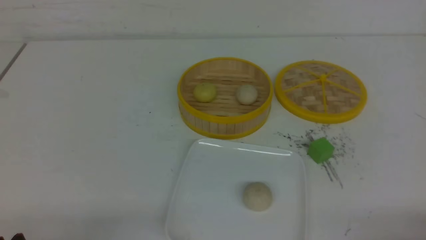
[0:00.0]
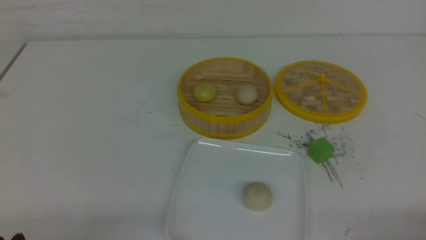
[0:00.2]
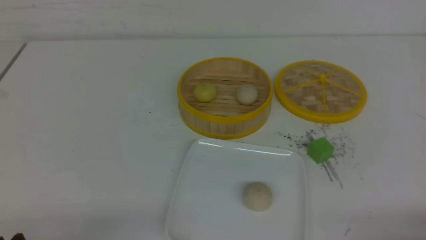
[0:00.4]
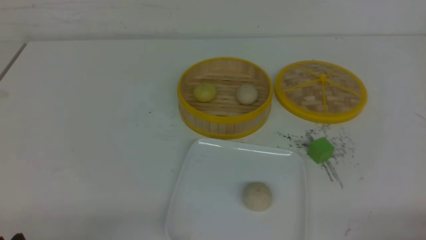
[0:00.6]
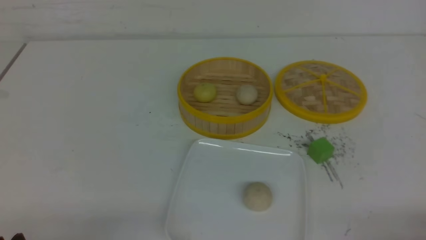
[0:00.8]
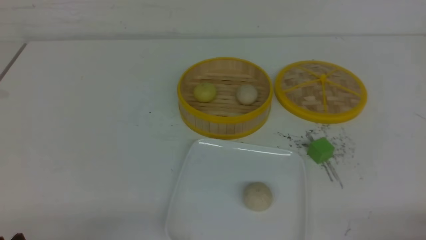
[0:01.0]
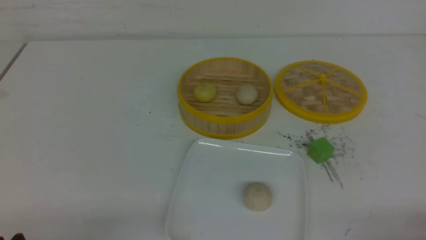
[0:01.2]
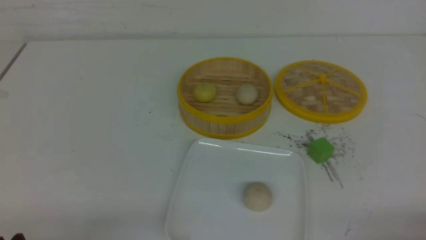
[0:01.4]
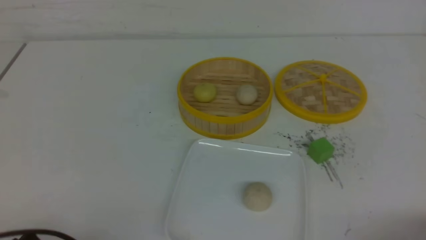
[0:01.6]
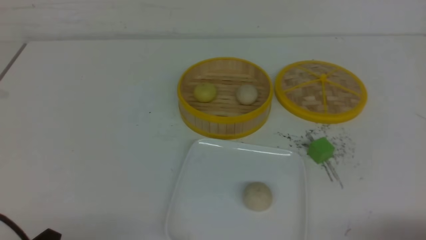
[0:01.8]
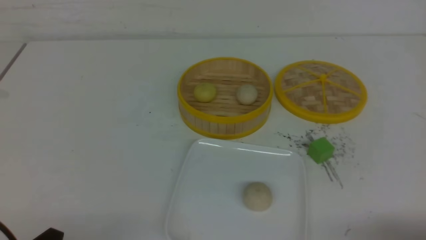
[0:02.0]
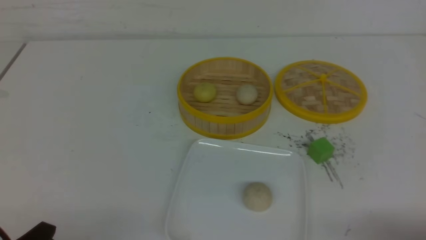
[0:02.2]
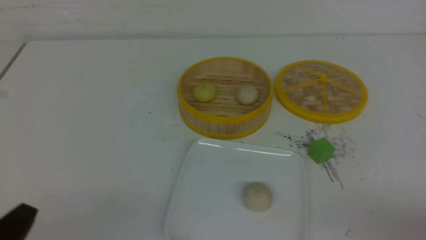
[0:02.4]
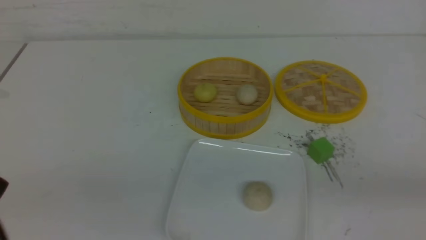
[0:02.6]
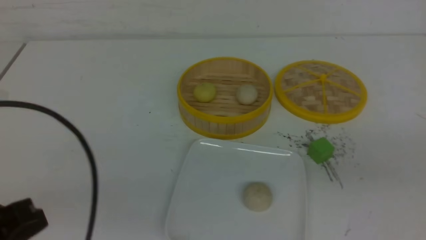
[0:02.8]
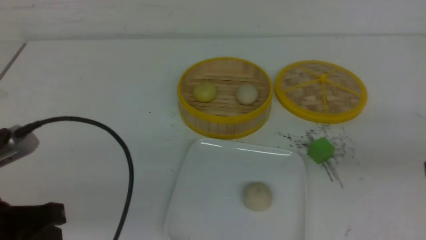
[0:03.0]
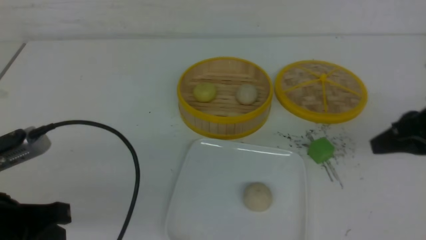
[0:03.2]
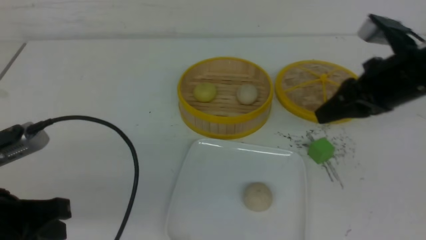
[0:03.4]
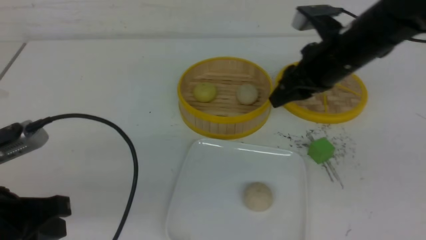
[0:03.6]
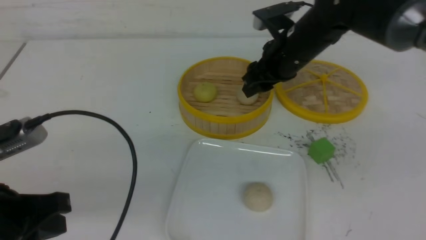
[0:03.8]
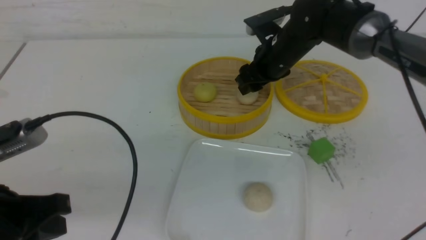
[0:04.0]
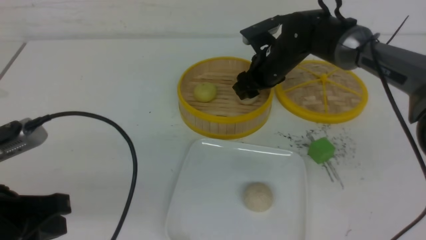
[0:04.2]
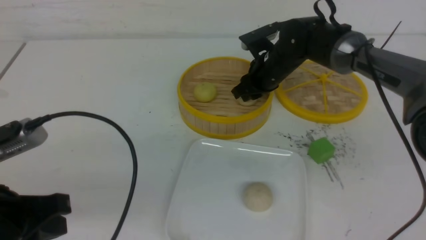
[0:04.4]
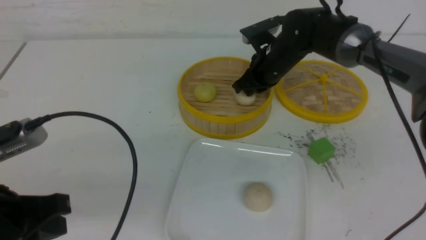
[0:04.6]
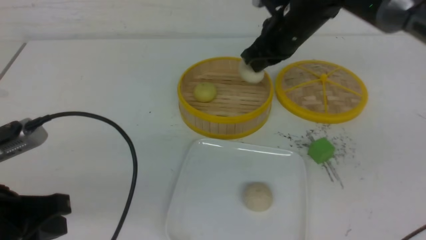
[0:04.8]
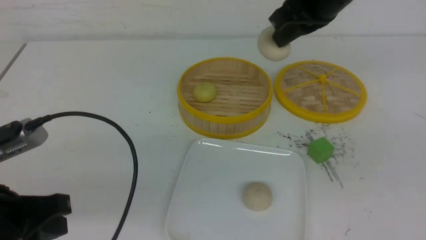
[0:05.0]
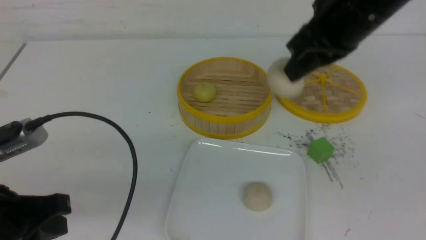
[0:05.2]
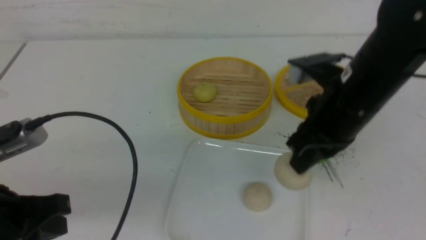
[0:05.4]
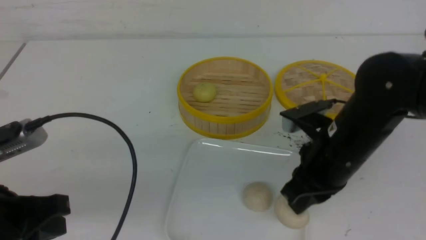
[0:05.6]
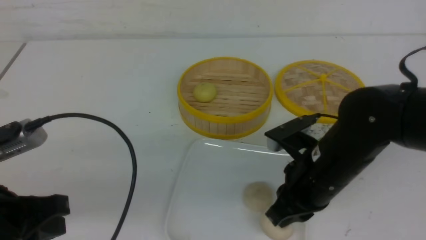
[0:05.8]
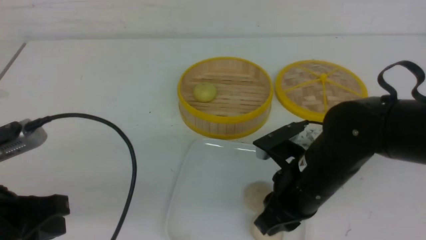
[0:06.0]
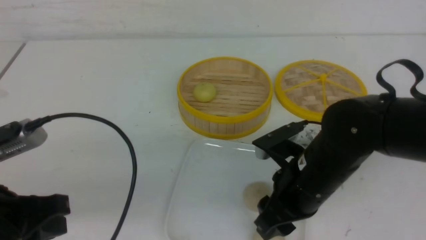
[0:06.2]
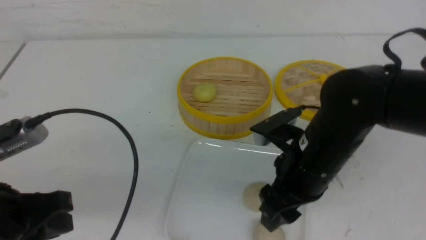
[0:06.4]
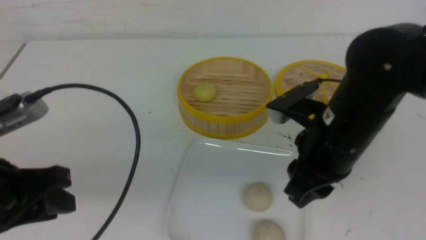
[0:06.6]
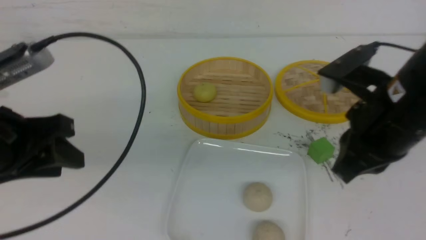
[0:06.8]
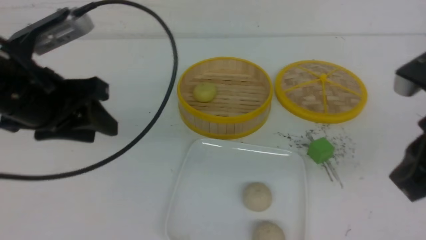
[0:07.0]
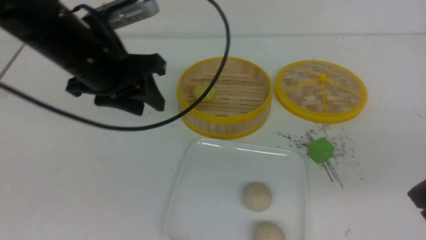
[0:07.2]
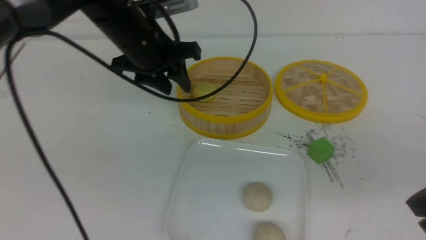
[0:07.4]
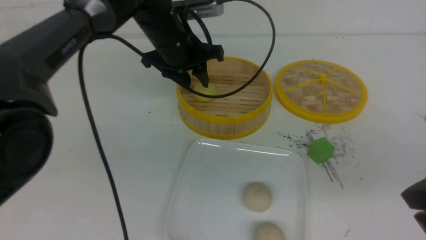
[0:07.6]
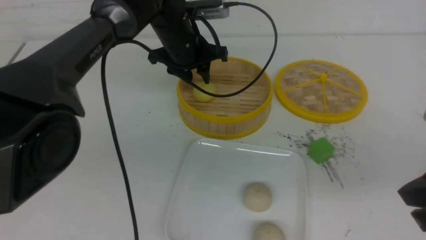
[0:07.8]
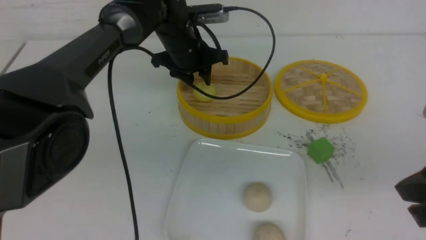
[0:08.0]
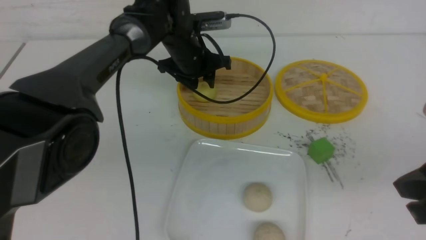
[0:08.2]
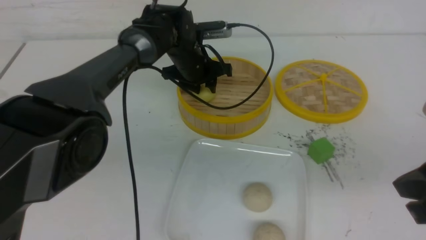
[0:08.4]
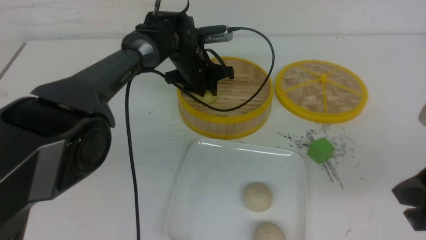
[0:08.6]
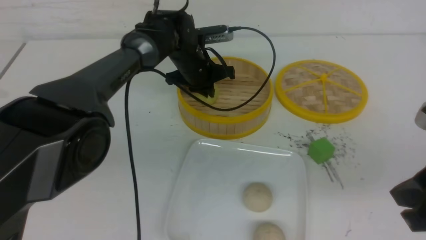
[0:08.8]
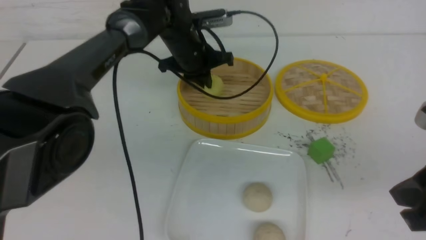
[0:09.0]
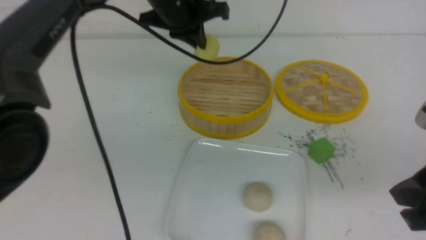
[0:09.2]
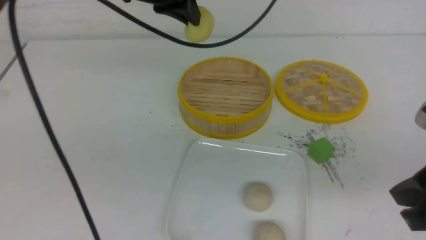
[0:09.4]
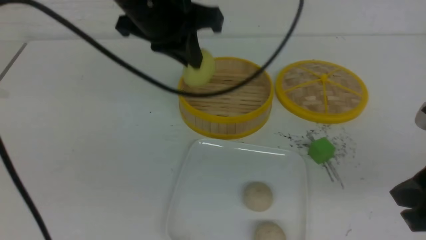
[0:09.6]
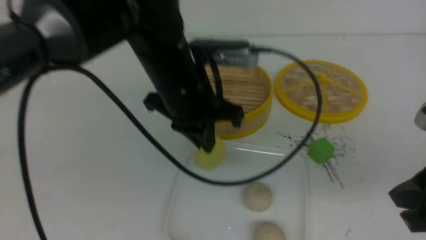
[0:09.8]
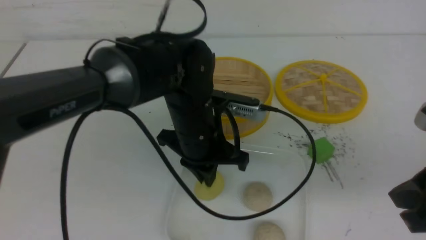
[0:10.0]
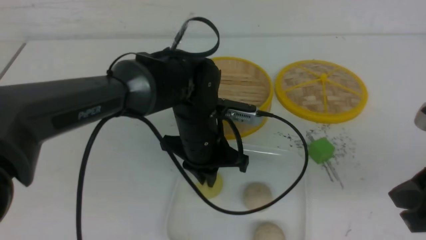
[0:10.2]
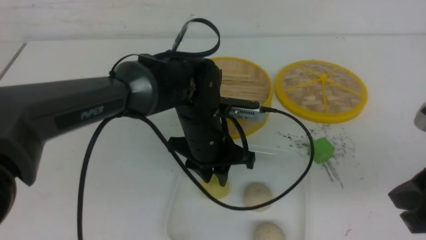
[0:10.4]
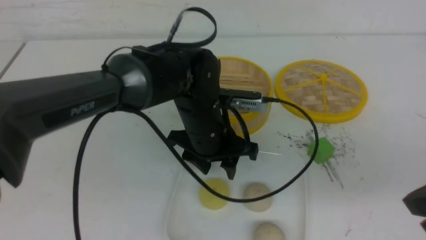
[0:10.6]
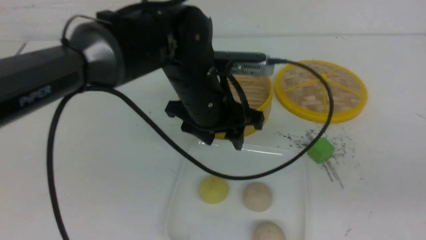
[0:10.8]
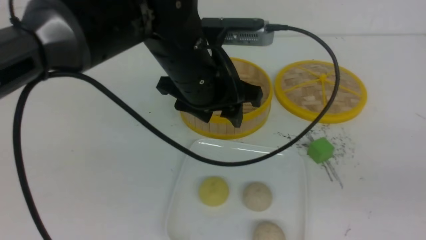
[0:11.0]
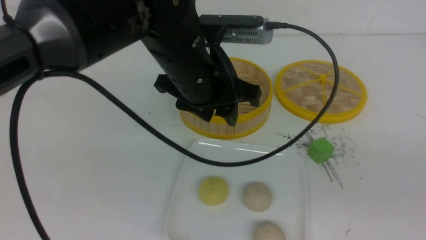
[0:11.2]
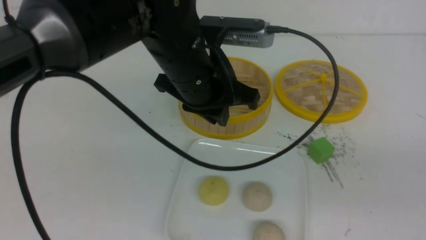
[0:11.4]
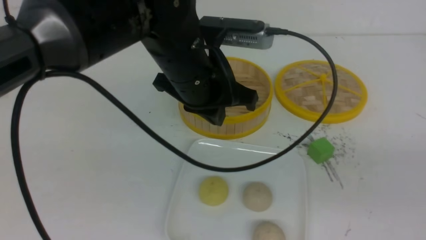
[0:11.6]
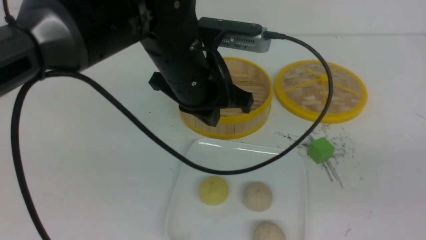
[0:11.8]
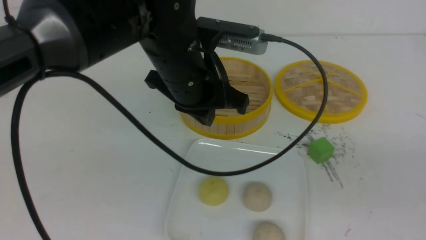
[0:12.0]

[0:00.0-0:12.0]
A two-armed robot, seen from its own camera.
Step, 0:00.0 to 0:04.6: use the right arm to grab the steamed stuffed bun that is closest to it.
Step, 0:04.8 to 0:06.4: use the right arm to put the steamed stuffed bun into the plate.
Step, 0:06.6 to 0:08.4: use the left arm to grab the steamed stuffed bun that is closest to it.
Step, 0:08.6 to 0:10.2: use the left arm to put the steamed stuffed bun into the plate.
0:01.6 to 0:03.0: The two grippers go roughly 15 cm upward and forward. The left gripper closes its fingers; the right gripper closes its fingers.
0:03.0 to 0:04.4: The right gripper shifts about 35 cm forward and to the left, and opens.
0:04.4 to 0:06.0: The right gripper travels backward by roughly 25 cm, and closes and opens again.
0:06.0 to 0:07.6: The right gripper shifts some 20 cm to the right, upward and backward, and closes. The left gripper goes some 35 cm forward and to the right, and opens its fingers.
0:07.6 to 0:09.0: The left gripper reaches roughly 10 cm downward, then returns, and closes up.
0:09.0 to 0:10.4: The left gripper moves backward and downward, about 15 cm, and opens up.
0:10.4 to 0:12.0: The left gripper is displaced upward by approximately 10 cm, and closes up. The right gripper is displaced backward and to the right by roughly 10 cm.

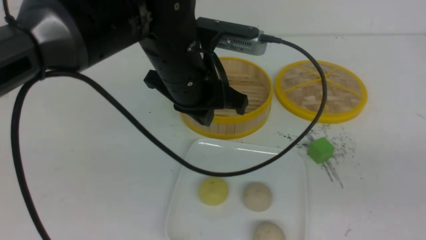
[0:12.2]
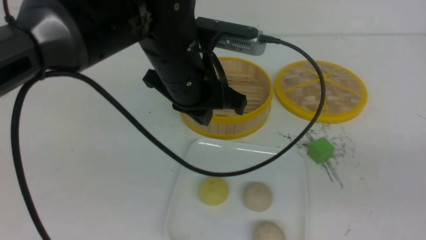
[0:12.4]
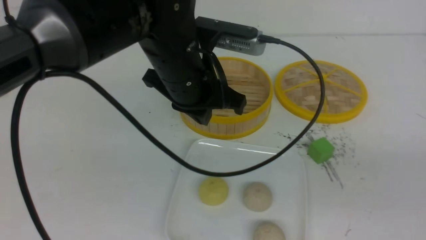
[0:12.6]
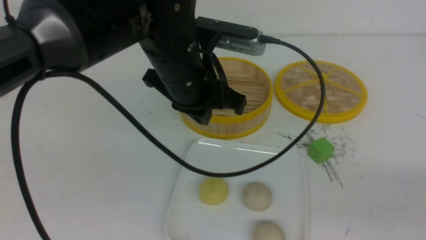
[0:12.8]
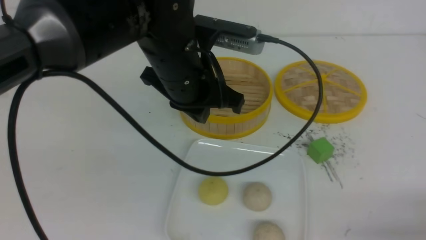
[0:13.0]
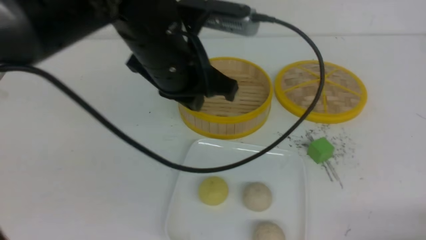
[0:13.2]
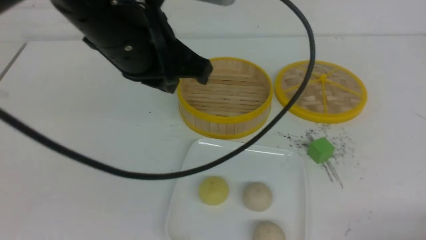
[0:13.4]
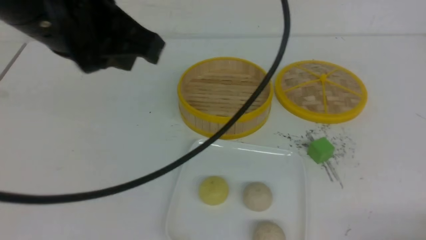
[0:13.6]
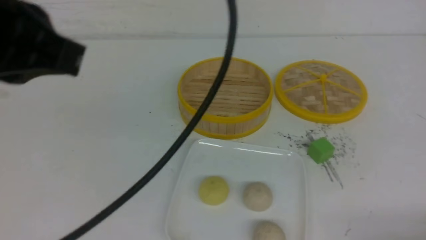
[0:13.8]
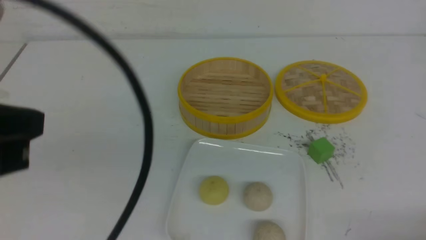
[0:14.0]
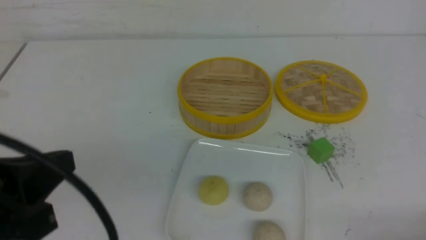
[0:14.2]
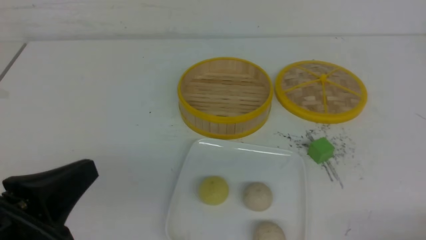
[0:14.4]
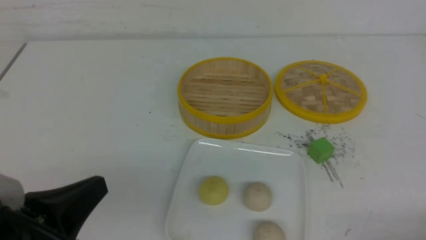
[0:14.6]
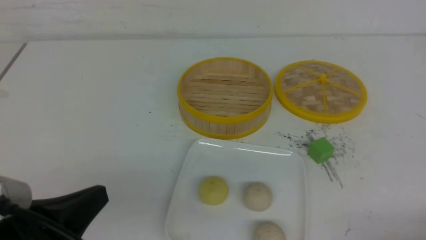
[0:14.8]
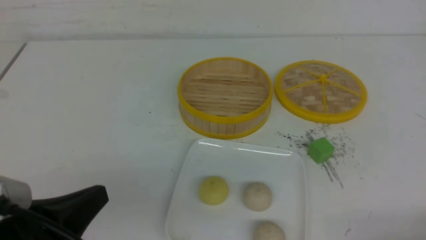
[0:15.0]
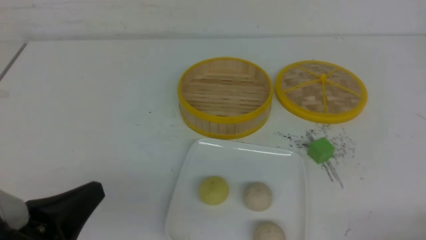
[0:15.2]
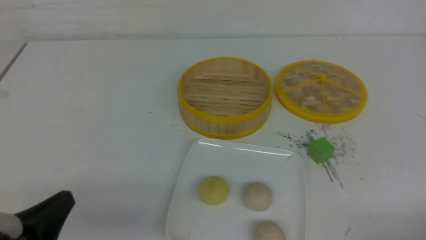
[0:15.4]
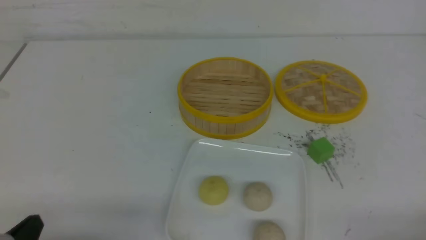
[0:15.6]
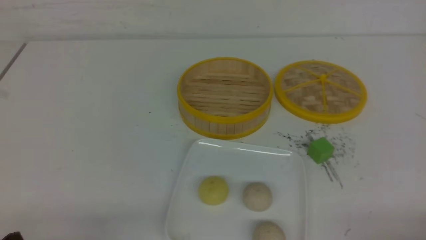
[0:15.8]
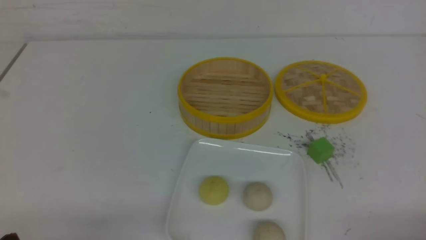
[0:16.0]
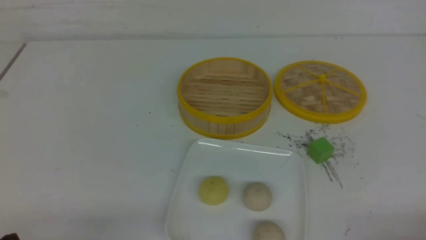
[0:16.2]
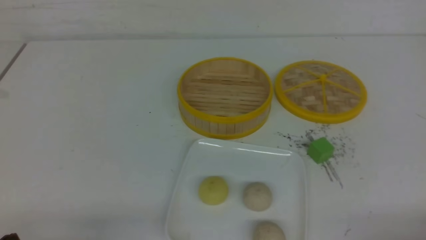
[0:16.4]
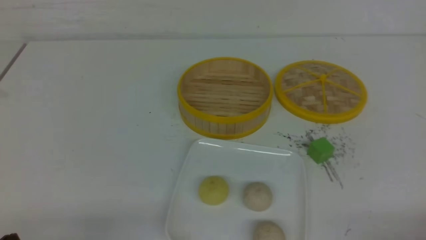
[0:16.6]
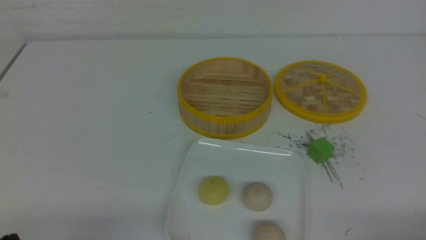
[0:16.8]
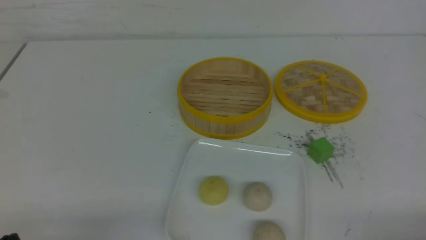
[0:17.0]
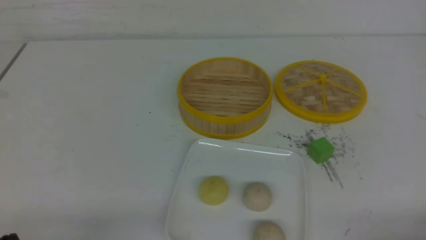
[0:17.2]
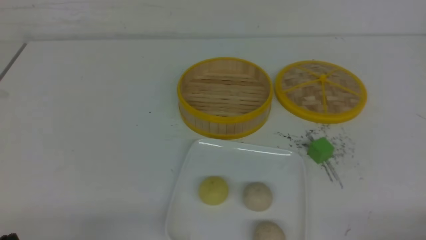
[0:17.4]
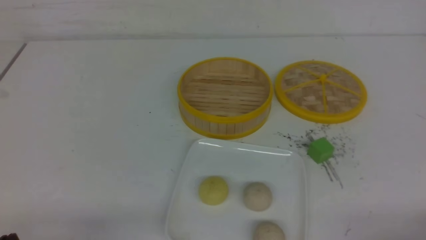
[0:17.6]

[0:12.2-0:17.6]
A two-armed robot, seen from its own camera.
0:12.2 to 0:13.6: The right gripper moves downward, approximately 15 cm, while the left gripper shifts about 20 cm upward, backward and to the left.
0:13.6 to 0:15.0: The left gripper moves downward and backward, about 20 cm.
0:15.0 to 0:16.2: The left gripper moves downward and to the left, about 10 cm.
0:16.2 to 0:17.6: Both grippers stay about where they are.
